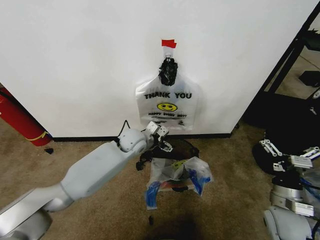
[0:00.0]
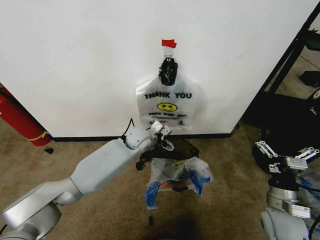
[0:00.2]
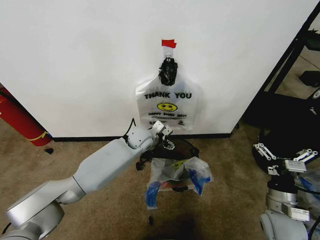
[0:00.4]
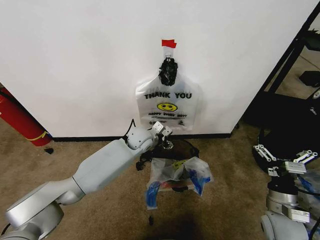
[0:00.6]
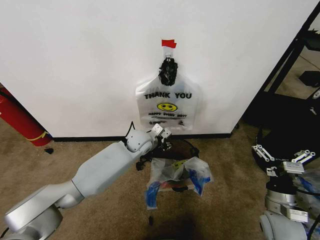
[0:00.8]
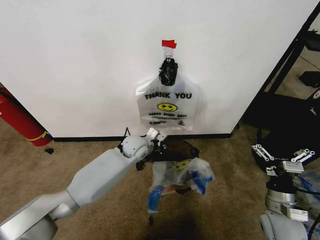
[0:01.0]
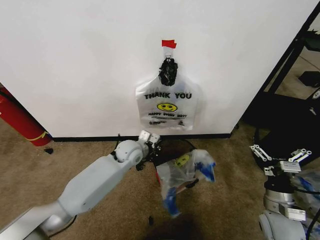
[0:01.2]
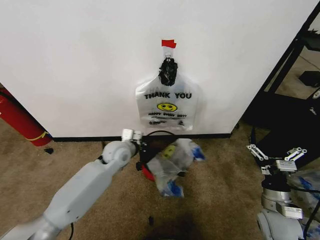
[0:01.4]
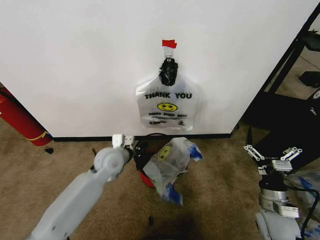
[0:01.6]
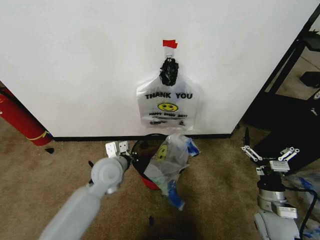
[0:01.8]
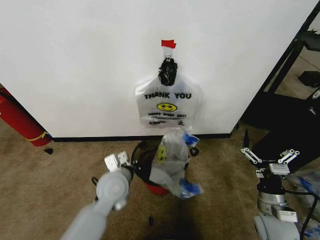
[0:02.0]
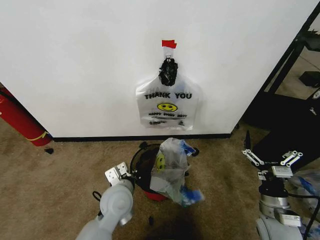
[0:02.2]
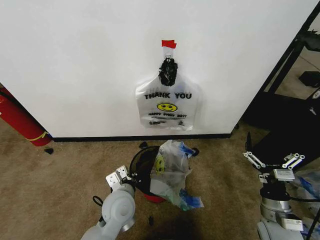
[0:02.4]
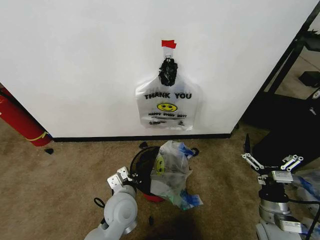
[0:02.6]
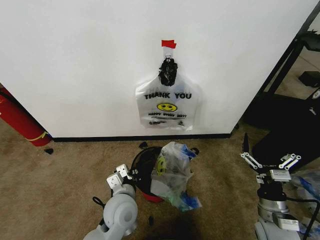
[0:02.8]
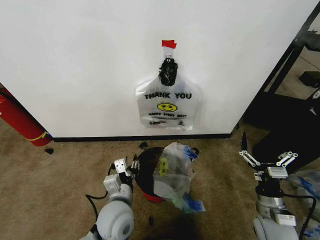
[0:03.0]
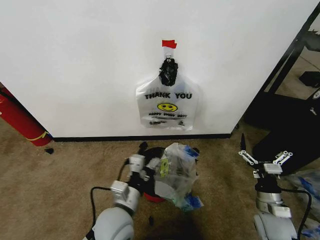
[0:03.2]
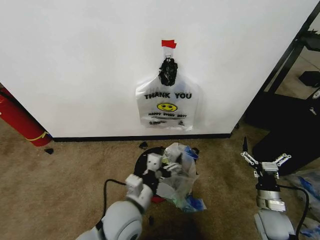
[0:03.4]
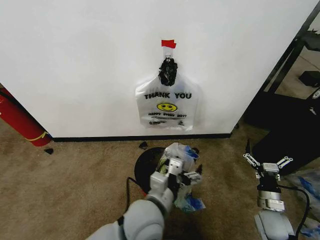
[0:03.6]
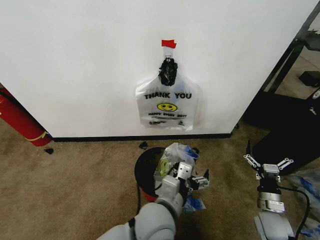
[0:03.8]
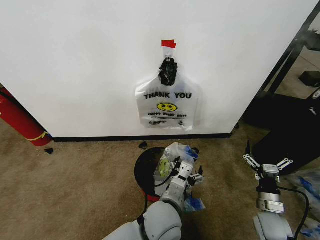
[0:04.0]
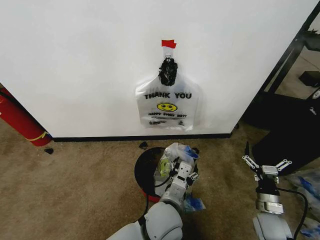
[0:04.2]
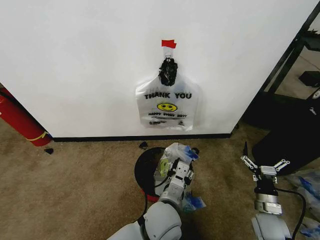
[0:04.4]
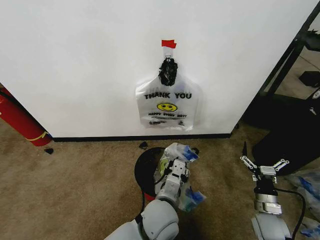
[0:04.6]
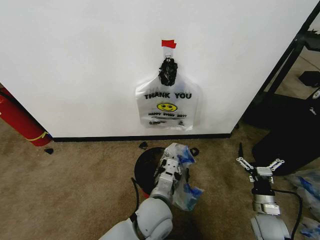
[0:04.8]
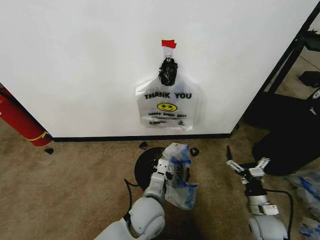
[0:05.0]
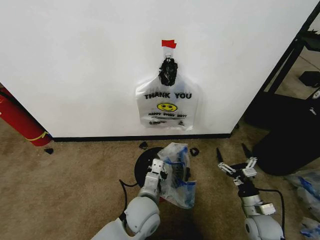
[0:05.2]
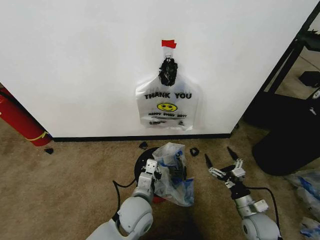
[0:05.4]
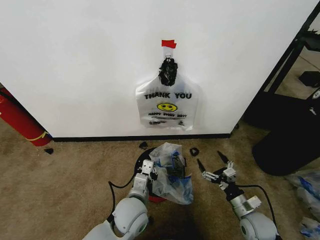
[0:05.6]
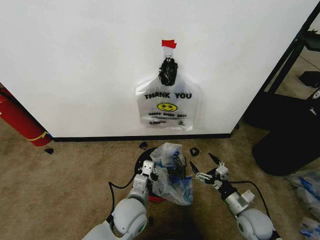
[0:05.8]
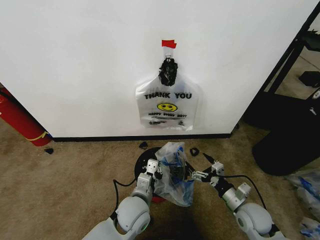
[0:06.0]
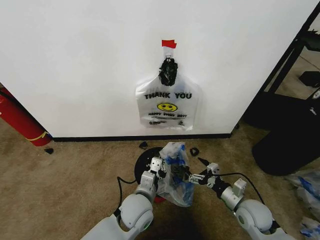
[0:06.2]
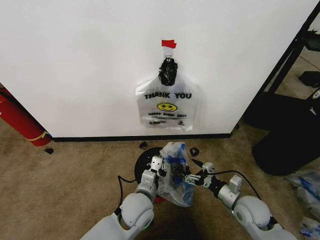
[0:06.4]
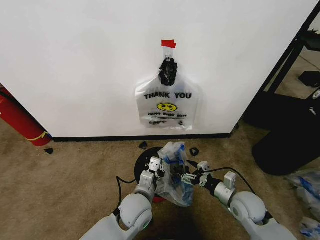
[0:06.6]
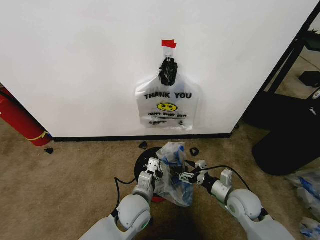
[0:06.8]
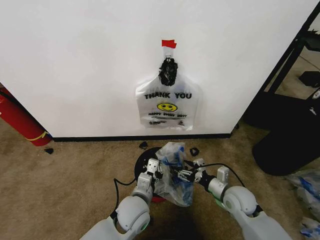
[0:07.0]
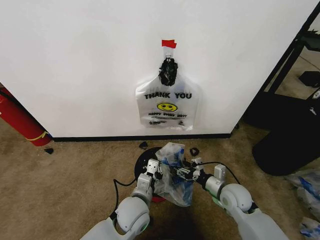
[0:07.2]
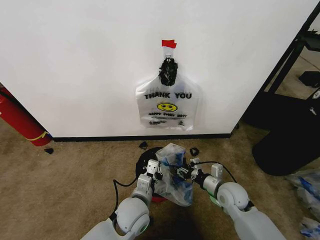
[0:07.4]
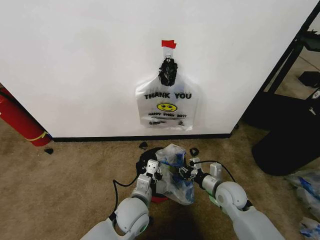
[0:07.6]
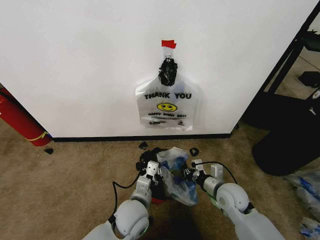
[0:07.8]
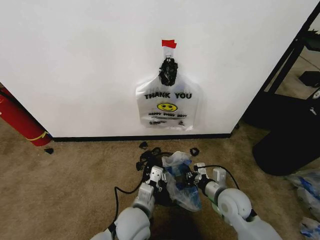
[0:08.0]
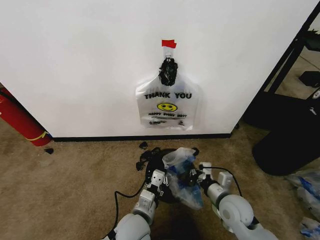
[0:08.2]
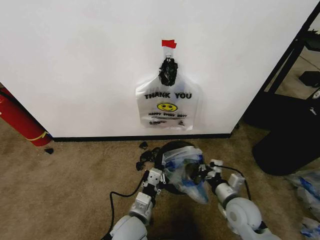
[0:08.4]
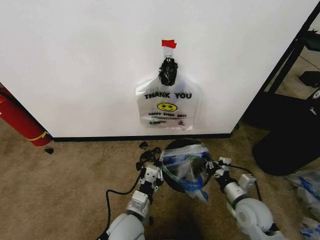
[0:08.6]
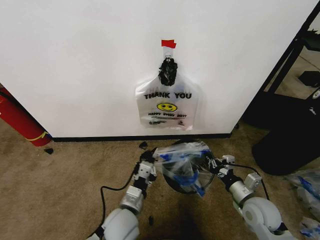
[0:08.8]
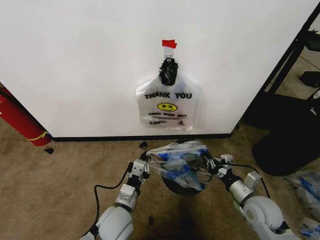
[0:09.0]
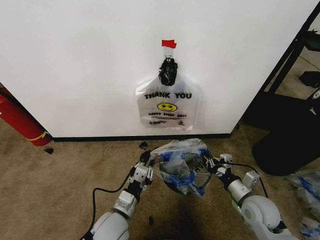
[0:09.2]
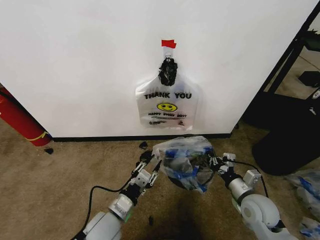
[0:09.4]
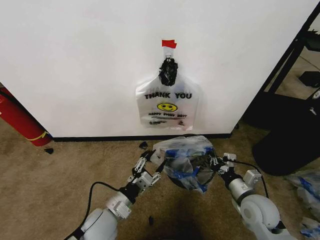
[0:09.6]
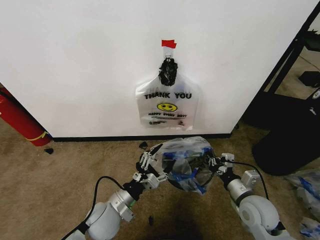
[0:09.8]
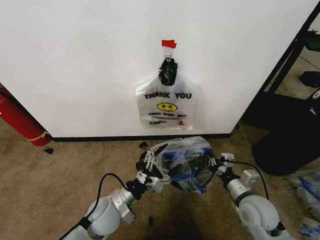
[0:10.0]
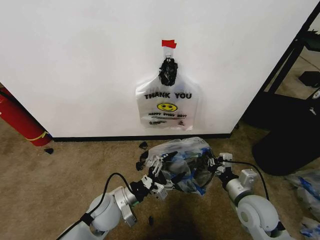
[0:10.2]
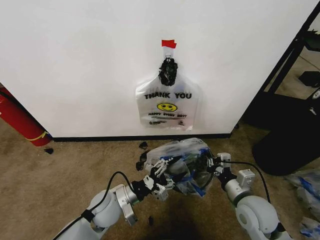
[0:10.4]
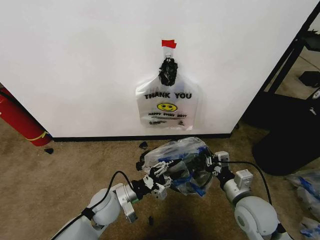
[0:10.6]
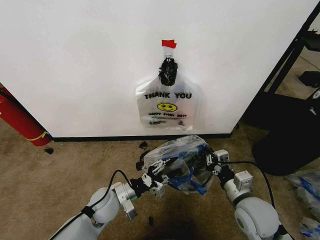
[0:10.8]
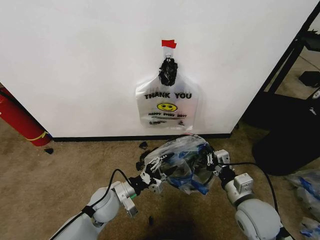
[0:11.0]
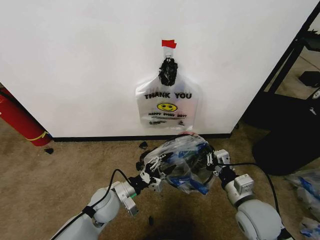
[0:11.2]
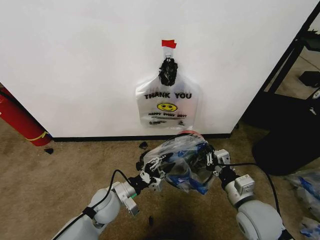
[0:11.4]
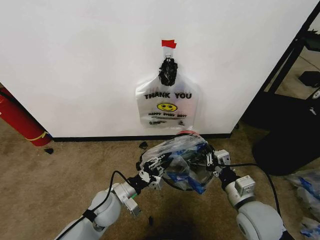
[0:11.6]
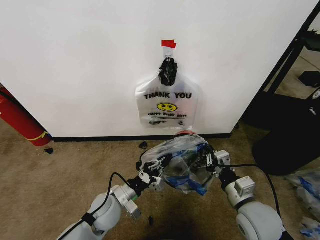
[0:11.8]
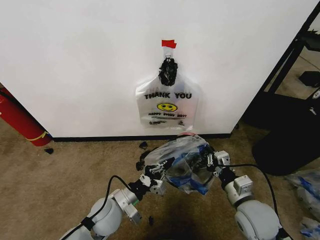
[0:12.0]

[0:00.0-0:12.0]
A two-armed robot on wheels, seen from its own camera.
Task of the whole recording: Pick up the garbage bag from the wall and place it over the trash bin.
0.0 to 1.6 s: The left gripper goes roughly 5 cm downward, and closes its fingers.
1.6 to 3.0 s: The left gripper heads backward, covering approximately 20 cm, and opens up.
3.0 to 4.4 s: The right gripper moves downward, some 5 cm. Meanwhile the left gripper travels to the right by some 15 cm, and opens, then closes again.
4.4 to 6.0 s: The left gripper is displaced to the left by about 10 cm, and closes up. Meanwhile the right gripper moves to the left, approximately 5 cm.
6.0 to 7.6 s: The right gripper goes some 10 cm forward and to the left, and closes its fingers.
7.6 to 9.0 s: The right gripper heads to the right and backward, covering about 10 cm; the left gripper changes place by roughly 5 cm.
9.0 to 10.4 s: The right gripper shifts by about 5 cm. Meanwhile the left gripper ends up about 5 cm from where it was, and opens.
10.4 to 12.0 s: The left gripper closes.

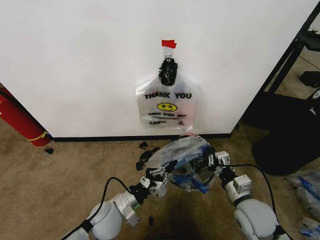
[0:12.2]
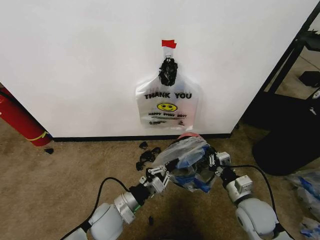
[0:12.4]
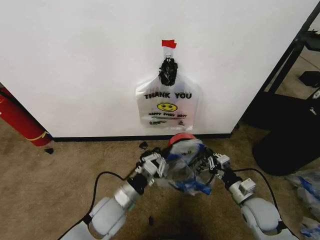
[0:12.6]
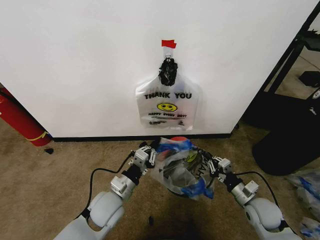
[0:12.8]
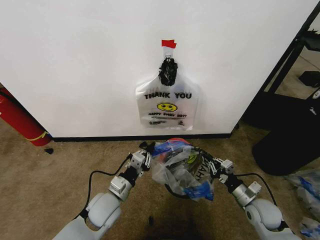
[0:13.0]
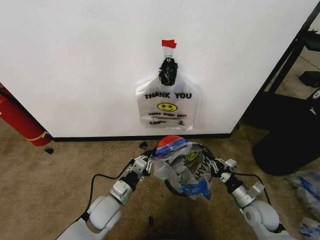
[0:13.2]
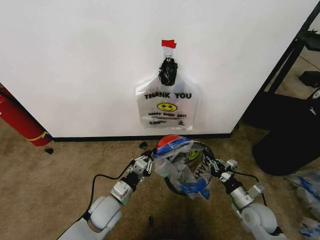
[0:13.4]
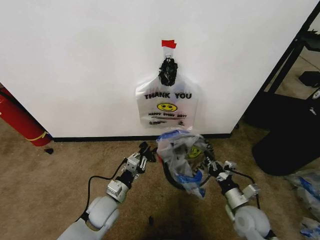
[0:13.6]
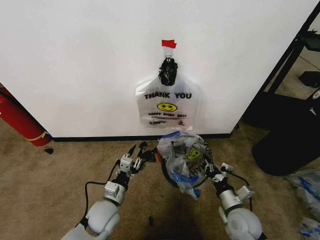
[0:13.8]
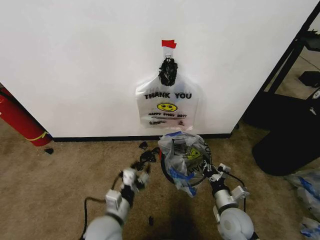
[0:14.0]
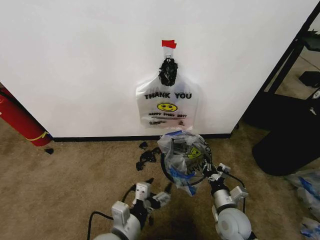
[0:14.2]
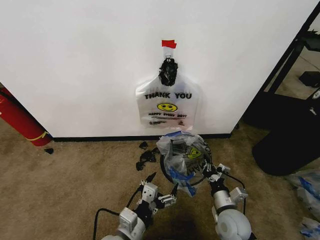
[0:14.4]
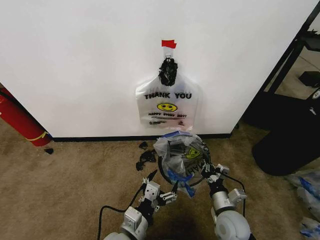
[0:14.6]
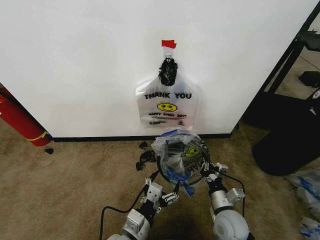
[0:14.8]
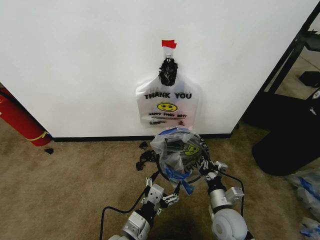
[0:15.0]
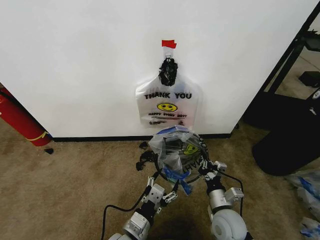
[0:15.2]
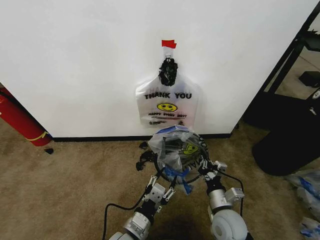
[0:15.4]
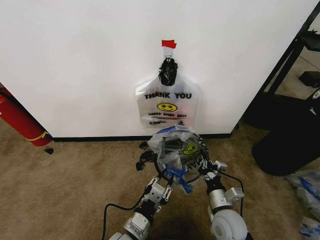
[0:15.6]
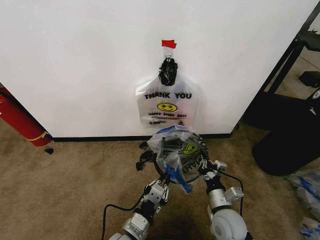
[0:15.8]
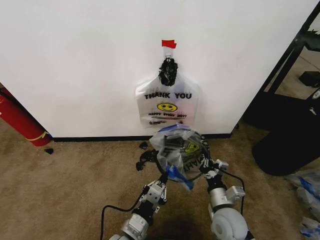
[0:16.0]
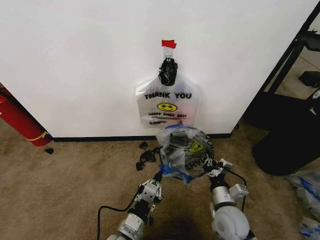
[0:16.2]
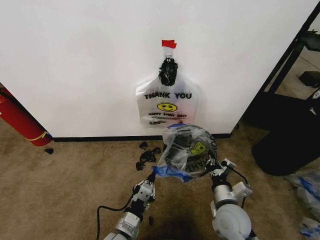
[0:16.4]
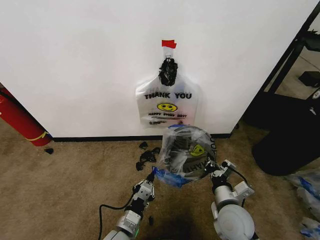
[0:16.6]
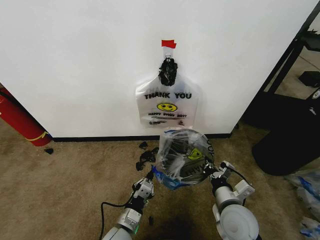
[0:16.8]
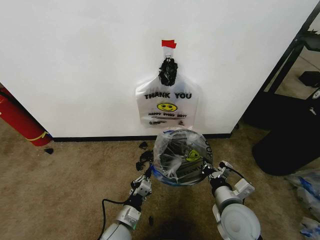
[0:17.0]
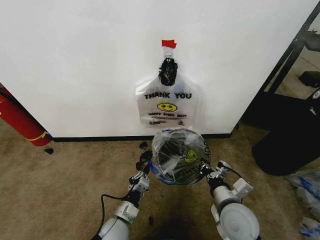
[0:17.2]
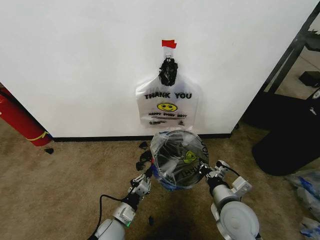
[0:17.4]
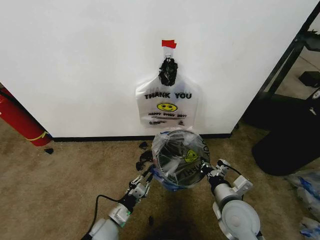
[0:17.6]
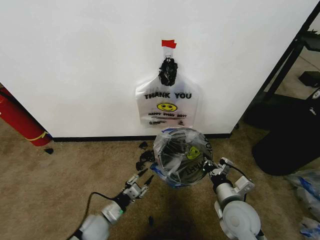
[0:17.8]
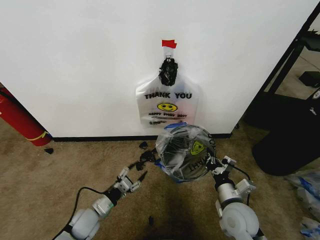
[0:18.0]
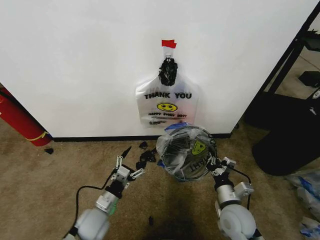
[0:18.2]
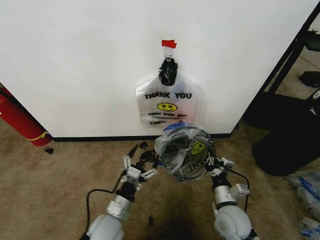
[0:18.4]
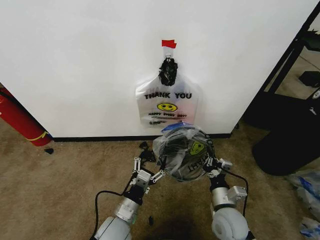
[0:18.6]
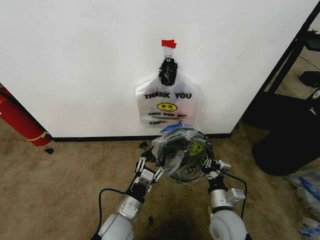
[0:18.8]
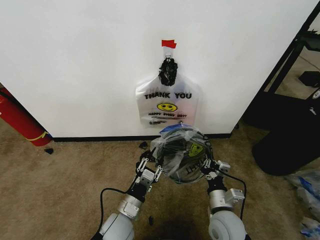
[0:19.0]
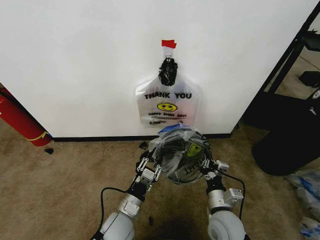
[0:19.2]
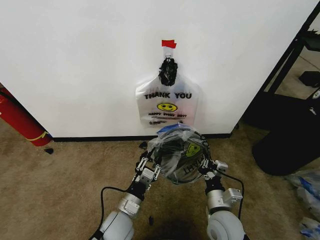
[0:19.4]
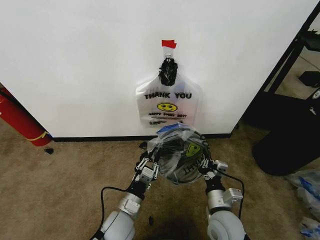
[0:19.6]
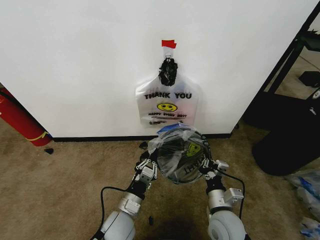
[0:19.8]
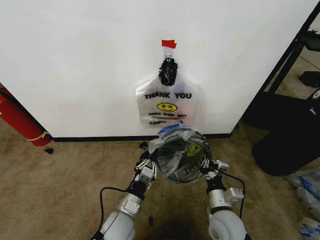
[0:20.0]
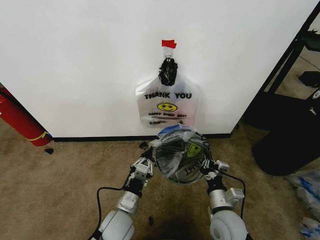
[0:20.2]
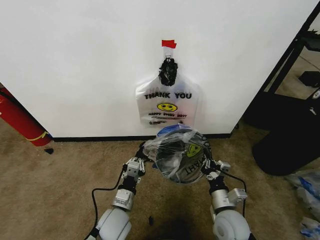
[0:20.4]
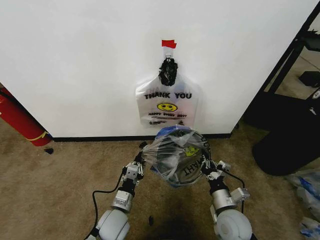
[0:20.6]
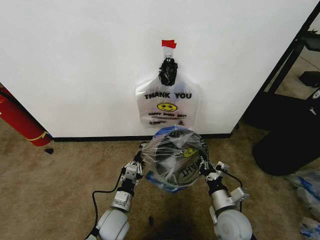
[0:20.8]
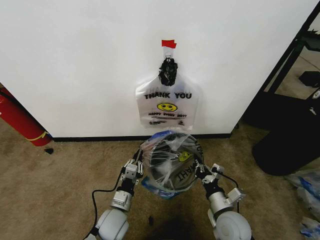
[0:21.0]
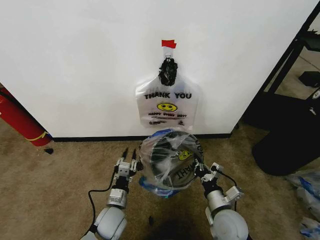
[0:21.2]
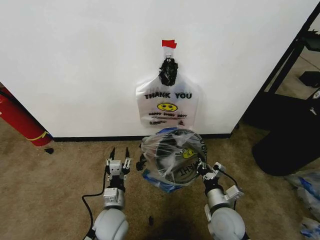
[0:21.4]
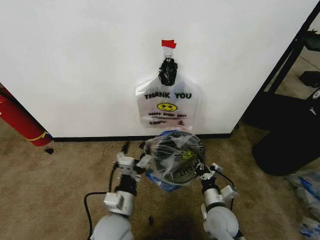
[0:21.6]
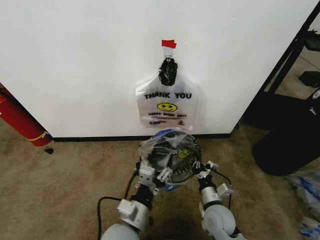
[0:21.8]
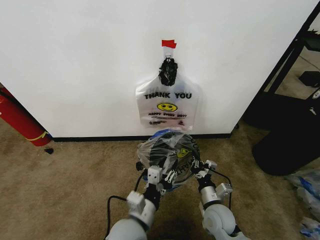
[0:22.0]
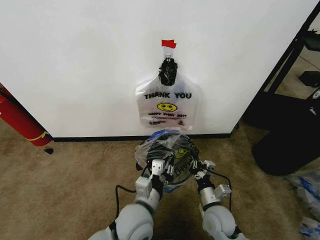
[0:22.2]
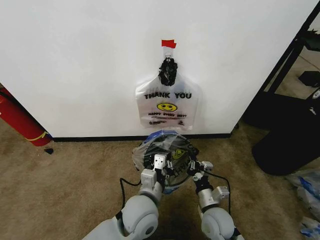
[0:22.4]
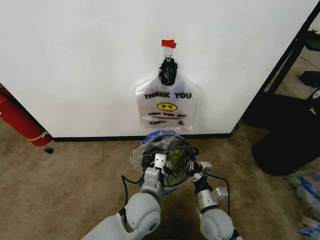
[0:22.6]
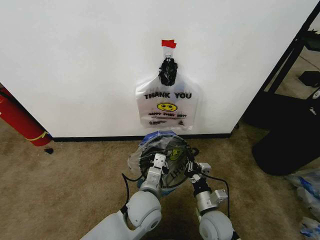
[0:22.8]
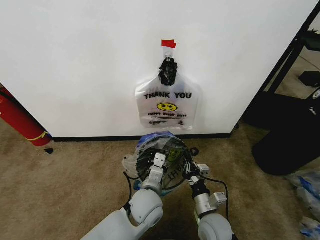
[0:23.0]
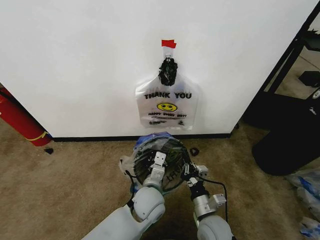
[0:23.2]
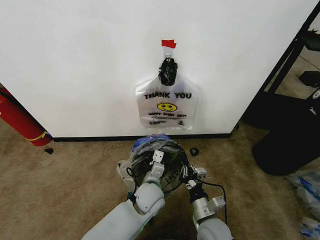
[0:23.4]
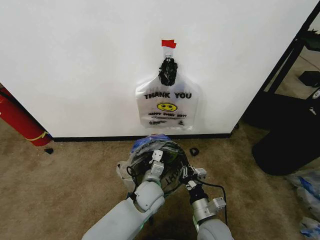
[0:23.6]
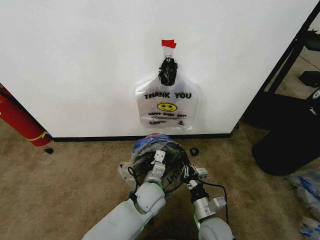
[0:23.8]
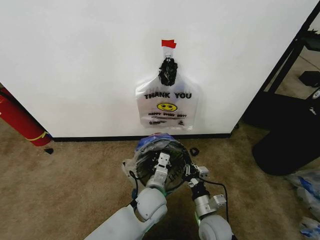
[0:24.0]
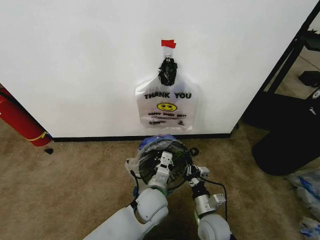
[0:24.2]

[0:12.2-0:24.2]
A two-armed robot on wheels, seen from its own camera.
Task of the whole recording: Pick up the garbage bag from the wall and place it over the trash bin.
12.2 to 13.8 s: The left gripper opens its fingers. The right gripper is displaced downward by about 10 cm.
13.8 to 15.2 s: The right gripper is displaced to the left by about 5 cm; the left gripper moves backward and to the right, roughly 15 cm, and opens.
15.2 to 16.6 s: The left gripper changes place by roughly 5 cm, and closes up.
16.6 to 18.2 s: The left gripper heads to the left and forward, covering approximately 15 cm, and opens its fingers.
18.2 to 19.8 s: The left gripper shifts approximately 15 cm to the right, and closes.
19.8 to 21.2 s: The left gripper ends up approximately 5 cm from where it was, and opens its fingers.
21.2 to 22.6 s: The left gripper moves upward and to the right, about 15 cm, and closes its fingers.
